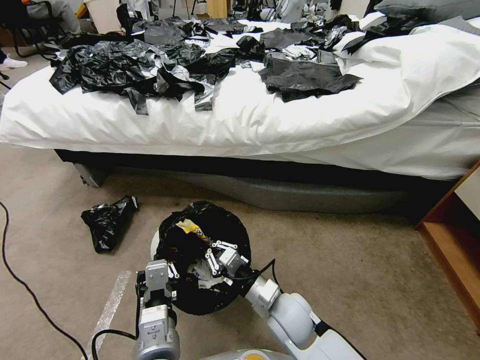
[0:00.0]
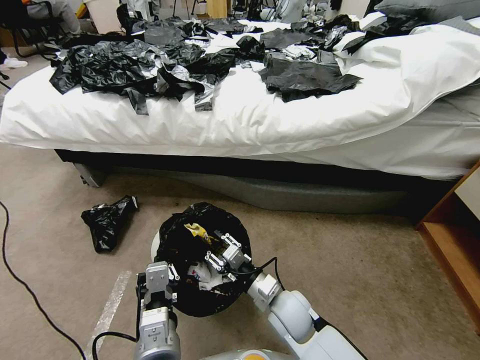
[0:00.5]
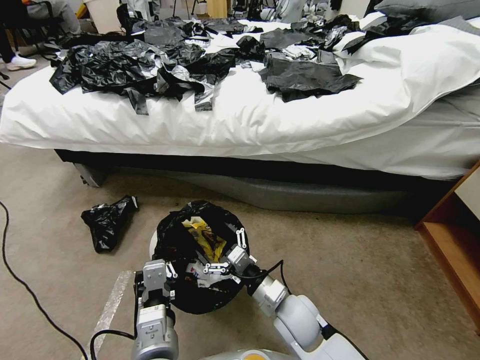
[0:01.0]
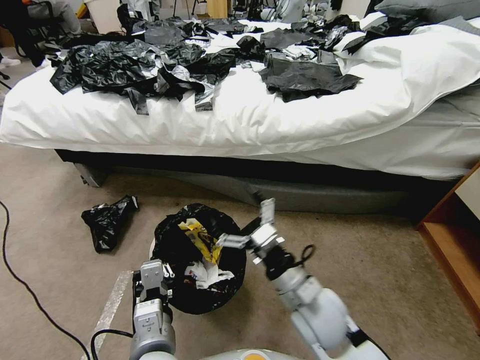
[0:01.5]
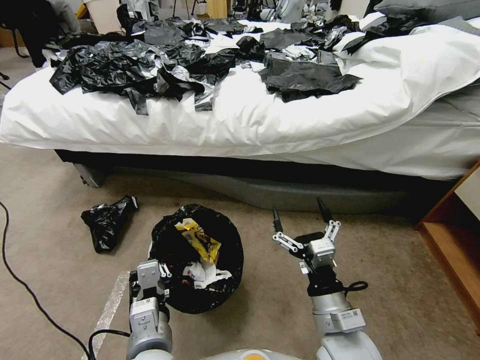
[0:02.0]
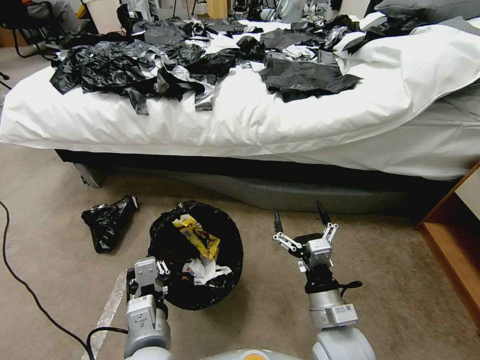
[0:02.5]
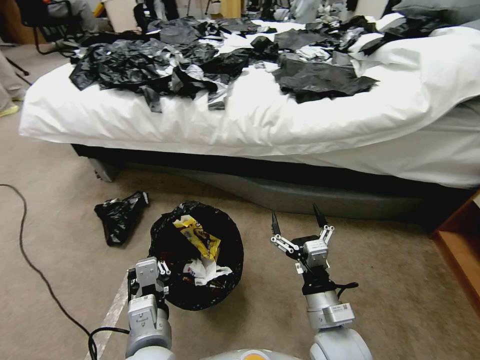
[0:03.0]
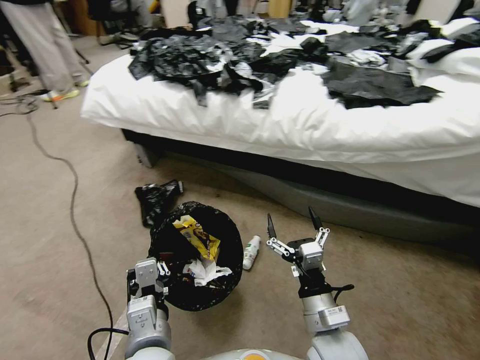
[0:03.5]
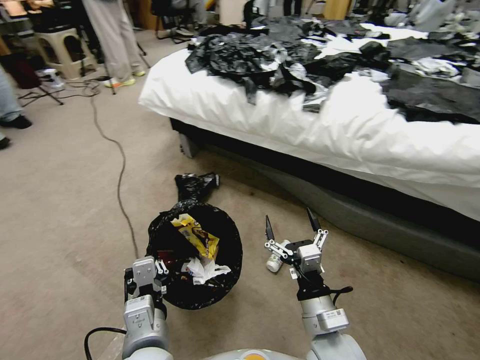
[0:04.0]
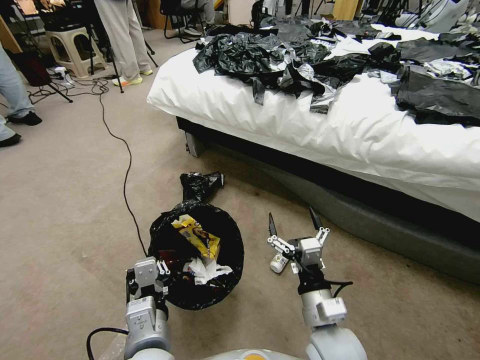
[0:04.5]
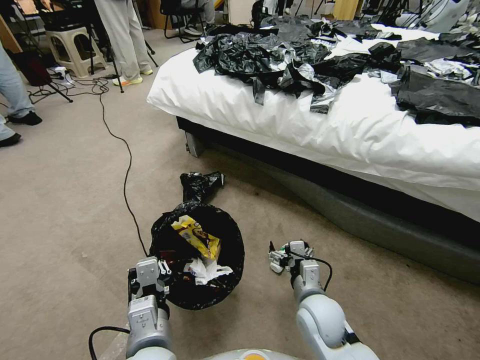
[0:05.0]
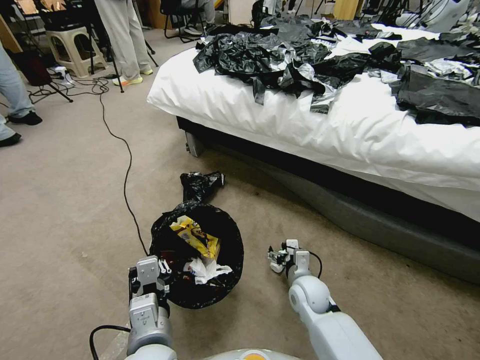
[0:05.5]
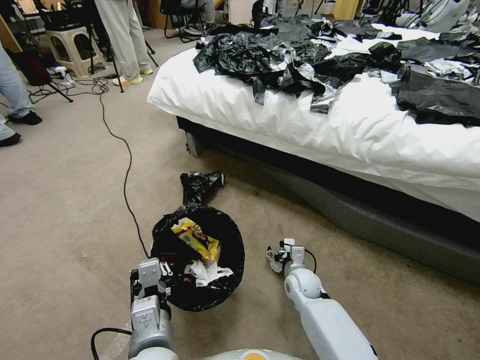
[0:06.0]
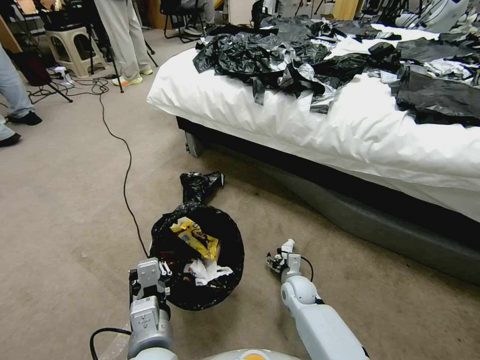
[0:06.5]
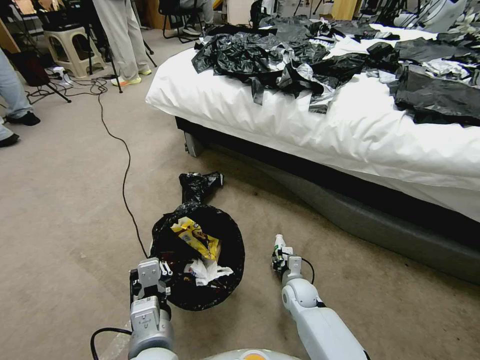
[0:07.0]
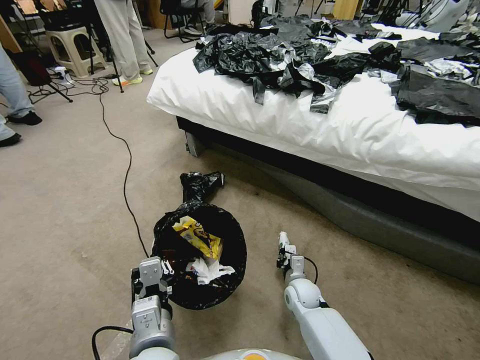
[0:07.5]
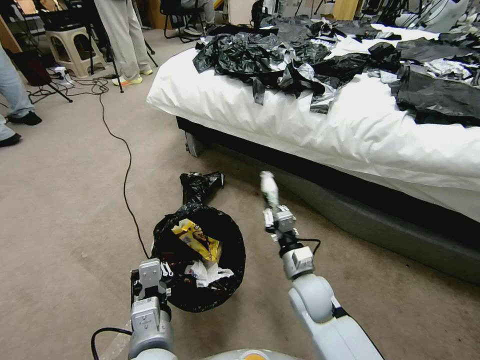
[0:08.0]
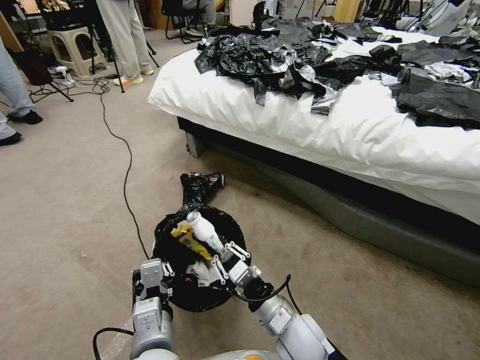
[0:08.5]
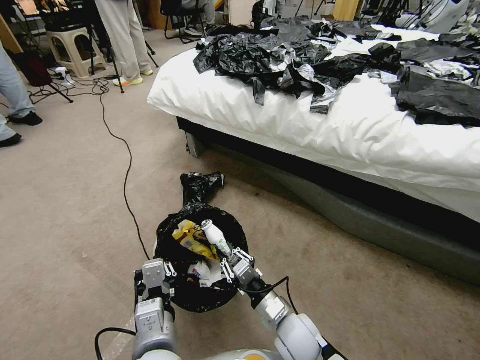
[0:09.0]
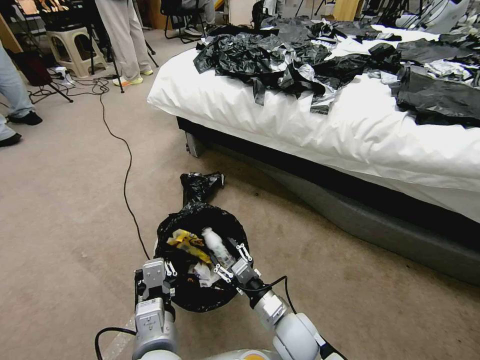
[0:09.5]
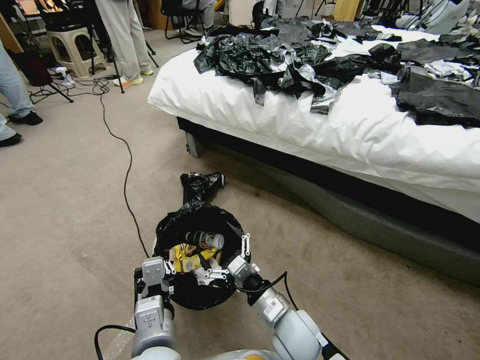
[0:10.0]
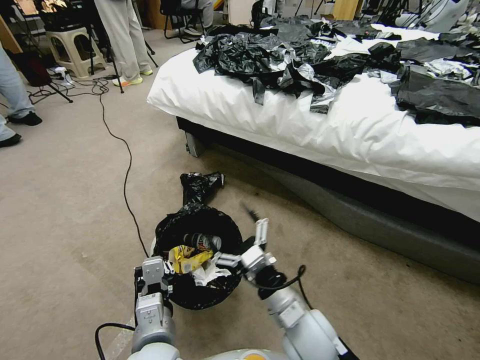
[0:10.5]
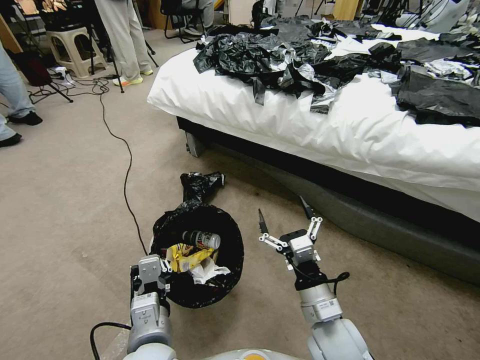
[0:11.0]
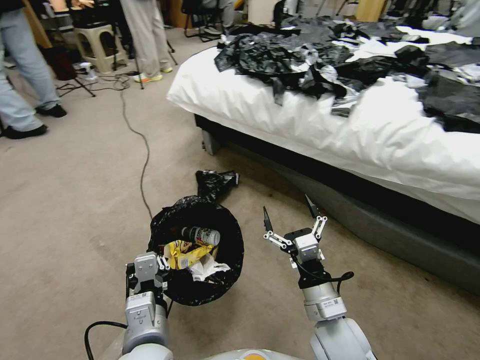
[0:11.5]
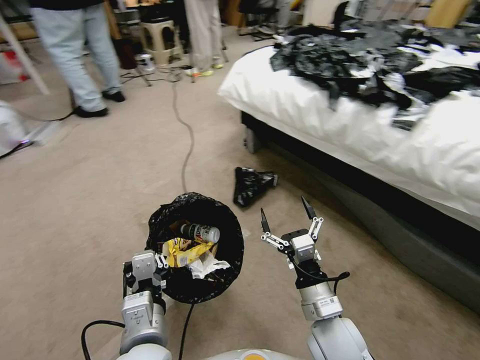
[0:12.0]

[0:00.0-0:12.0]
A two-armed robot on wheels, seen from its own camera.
Task of the whole recording: Pick up the trash bin, then pick up the garbage from the floor and place it into the trash bin.
0:00.0 to 0:02.0: The right gripper moves to the right, backward and upward, roughly 15 cm, and opens.
0:04.0 to 0:06.0: The right gripper travels forward and downward by approximately 25 cm.
0:06.0 to 0:08.0: The right gripper goes approximately 15 cm upward and backward, and closes its fingers.
0:08.0 to 0:10.0: The right gripper moves backward, roughly 5 cm, and opens its fingers.
0:10.0 to 0:12.0: The right gripper travels to the right and upward by roughly 10 cm.

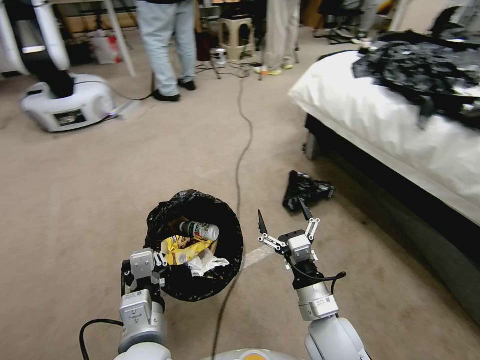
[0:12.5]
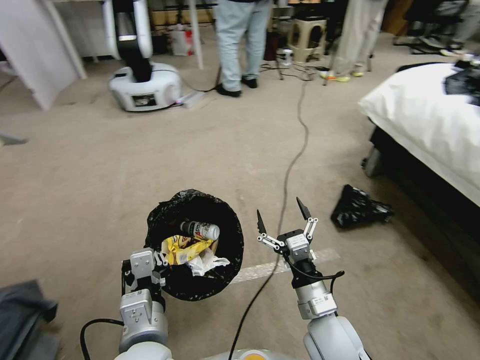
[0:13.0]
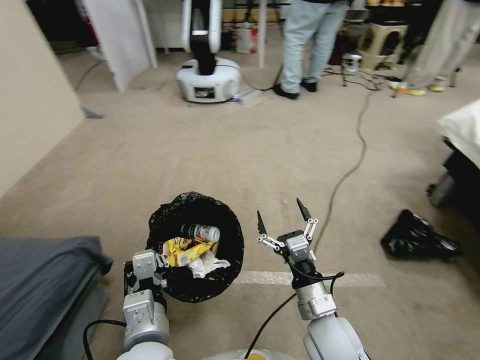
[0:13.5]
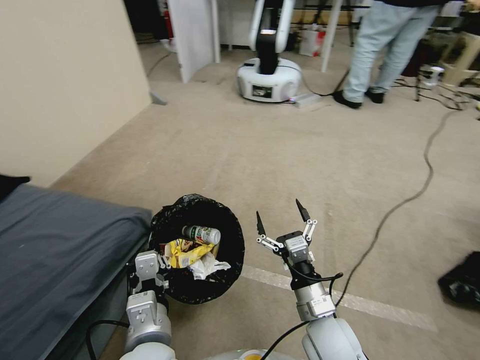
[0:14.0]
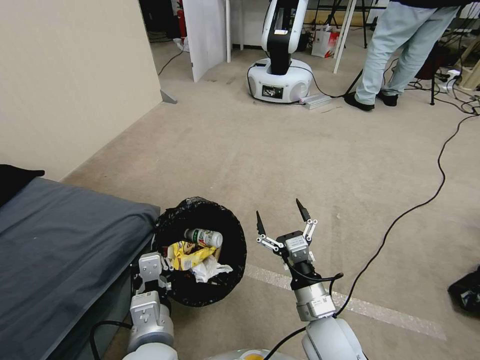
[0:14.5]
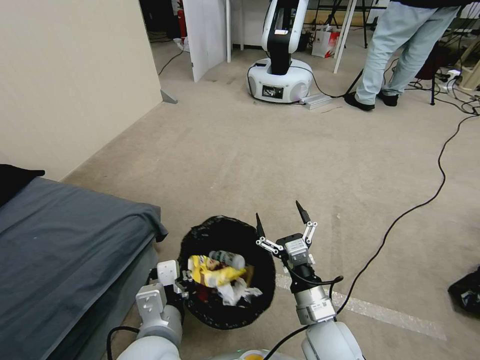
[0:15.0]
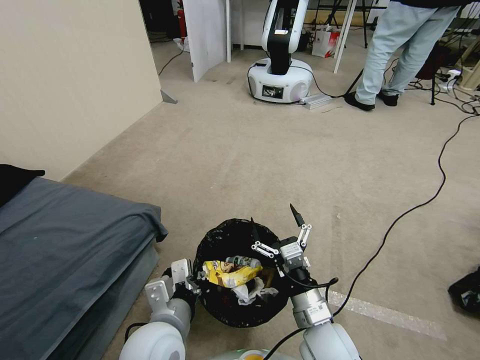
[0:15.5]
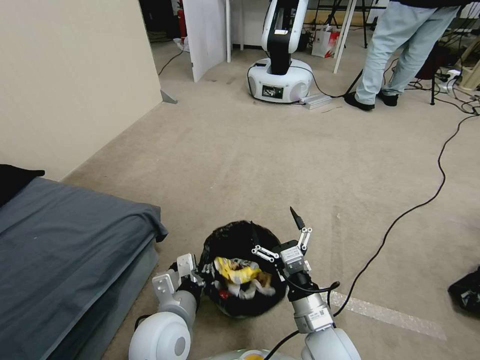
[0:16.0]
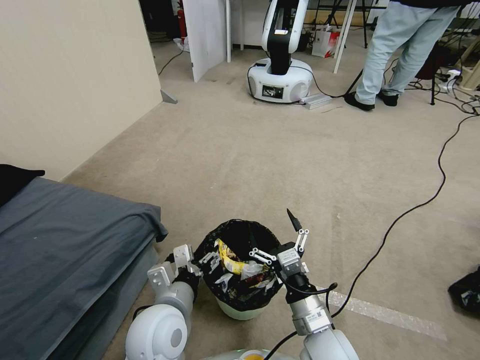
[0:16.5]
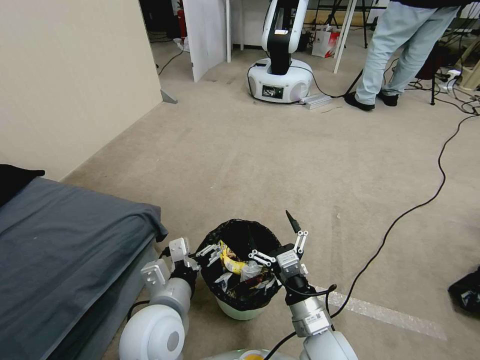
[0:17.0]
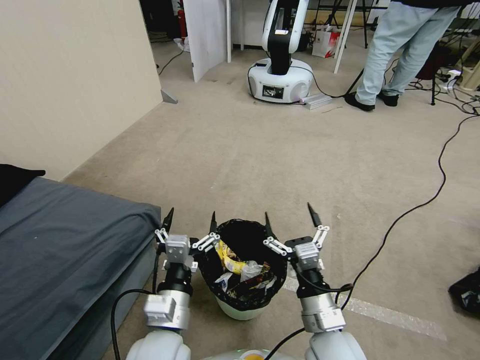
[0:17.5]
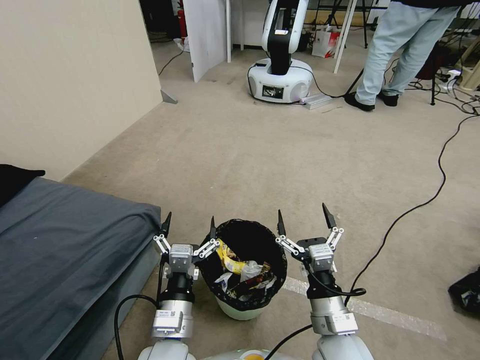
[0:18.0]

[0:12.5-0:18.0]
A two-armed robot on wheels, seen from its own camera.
Task of the whole recording: Pick up the trash bin, then pick up the garbage from the floor and place it into the trash bin.
0:14.5 to 0:16.0: The left gripper shifts by some 5 cm.
0:16.0 to 0:18.0: The left gripper opens its fingers.

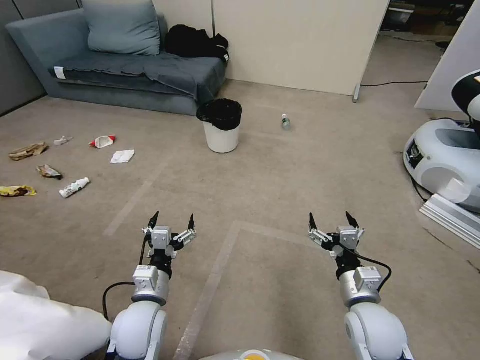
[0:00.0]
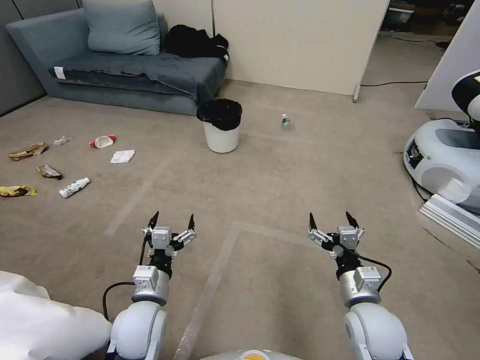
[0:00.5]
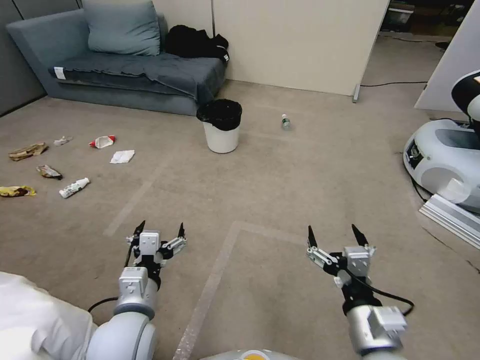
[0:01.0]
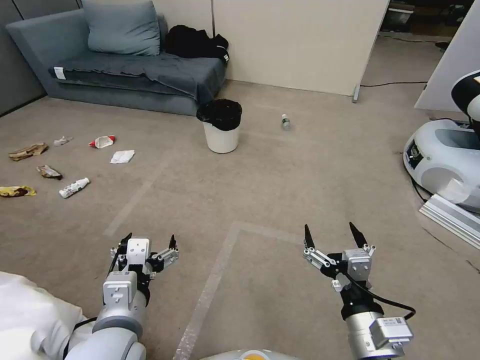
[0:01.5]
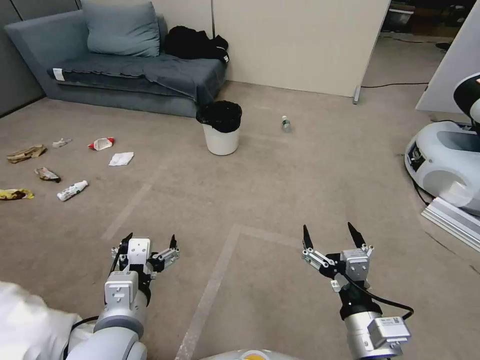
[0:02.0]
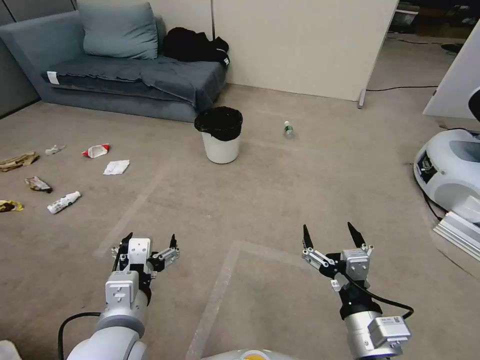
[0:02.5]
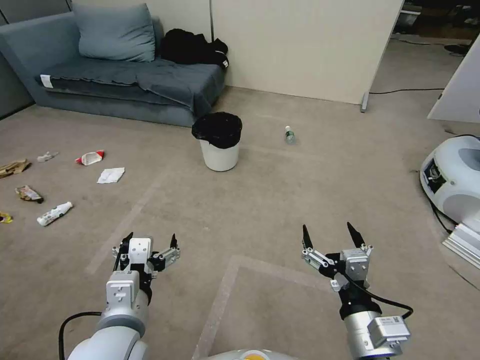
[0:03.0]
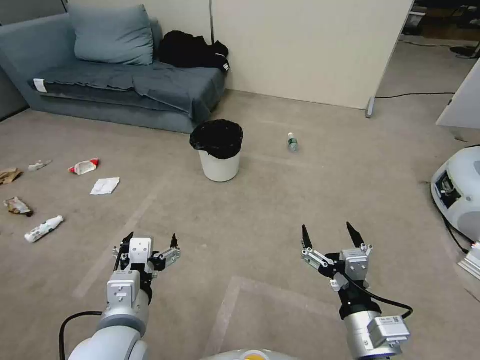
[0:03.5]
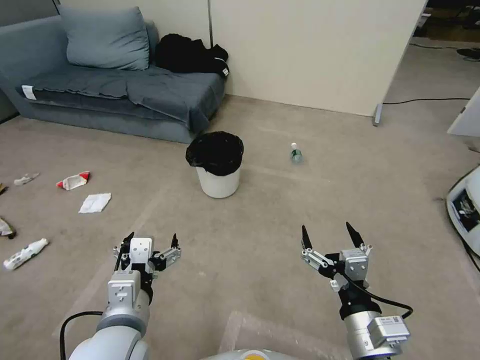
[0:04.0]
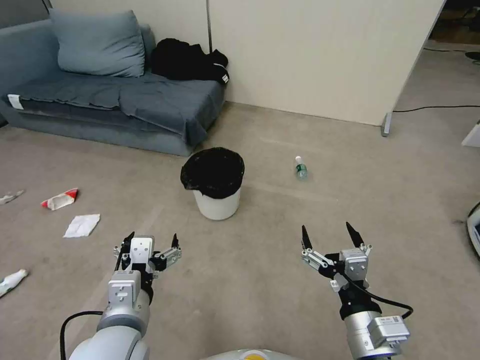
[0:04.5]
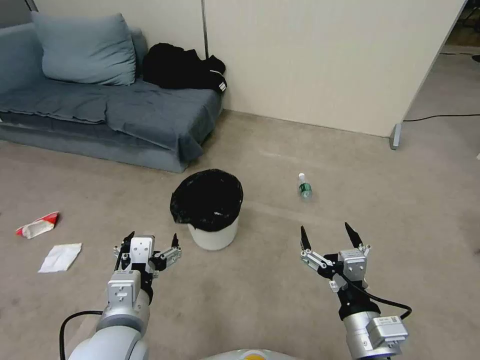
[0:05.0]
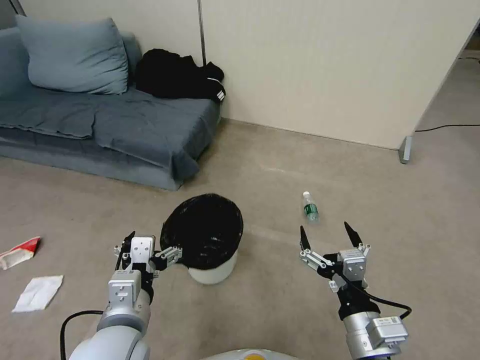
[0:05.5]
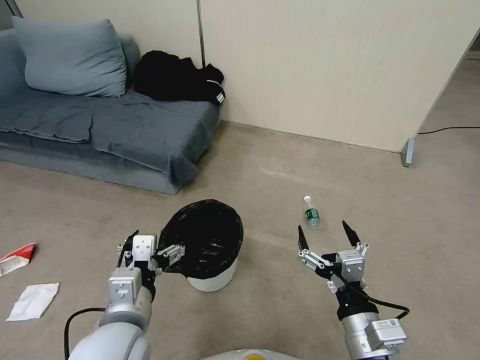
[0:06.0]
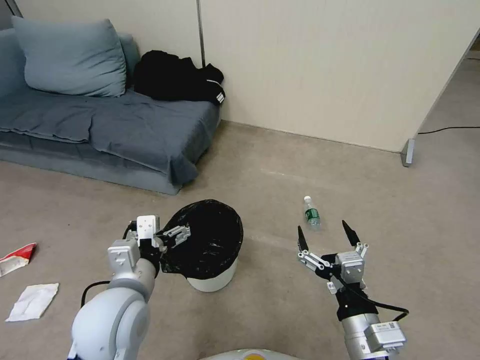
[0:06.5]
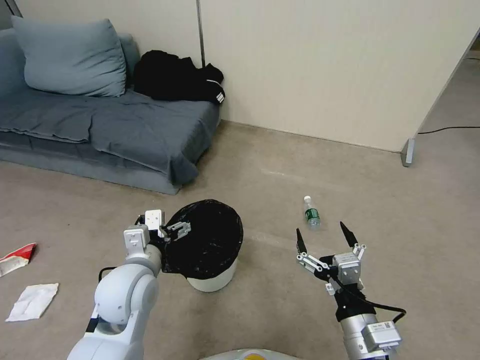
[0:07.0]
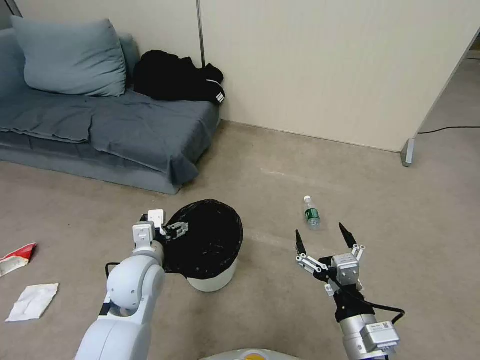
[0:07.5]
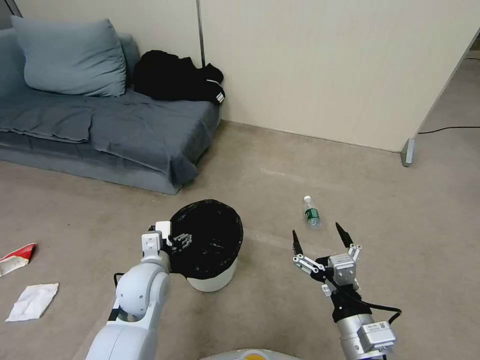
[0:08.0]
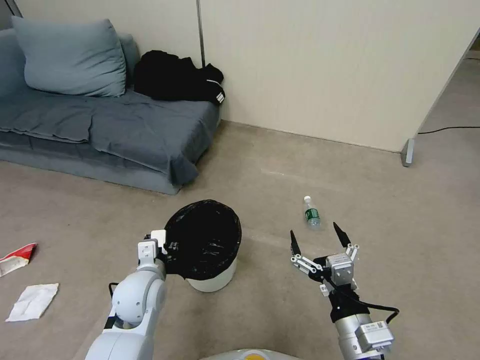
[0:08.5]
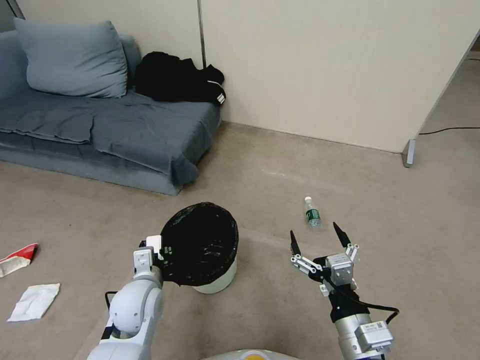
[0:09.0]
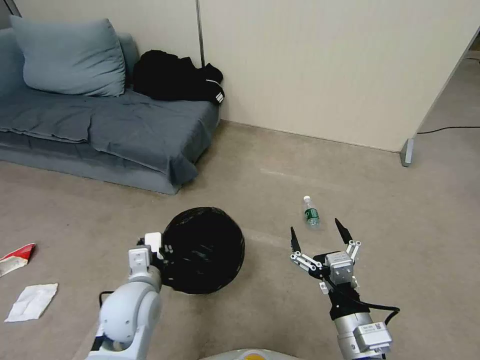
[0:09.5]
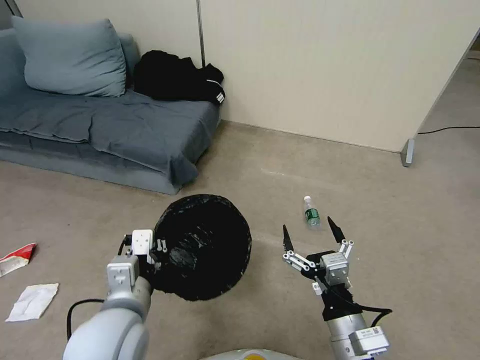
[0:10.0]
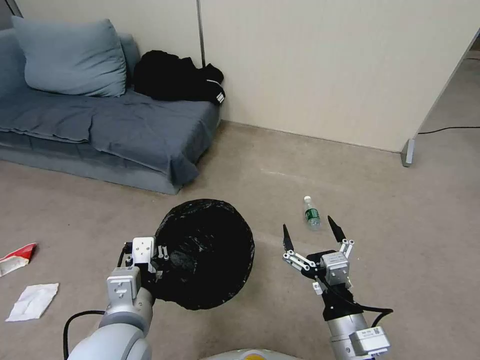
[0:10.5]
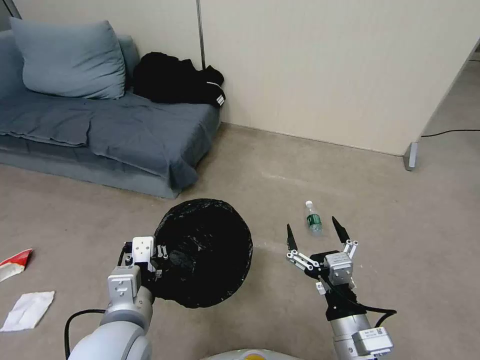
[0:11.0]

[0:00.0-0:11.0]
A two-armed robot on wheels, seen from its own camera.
Task of the whole recording: Pick up the trash bin, then pick up the garbage from the floor and place it into the trash bin.
0:05.5 to 0:07.5: The left gripper shifts some 15 cm forward and downward.
0:07.5 to 0:09.0: The left gripper shifts roughly 5 cm downward, and closes up.
0:09.0 to 0:11.0: The left gripper travels upward and backward by roughly 15 cm.
